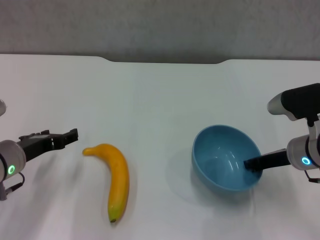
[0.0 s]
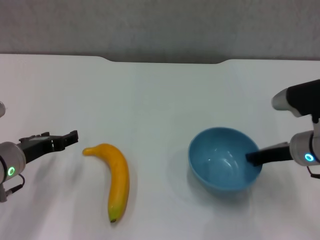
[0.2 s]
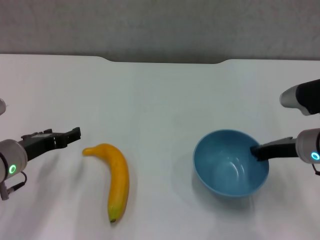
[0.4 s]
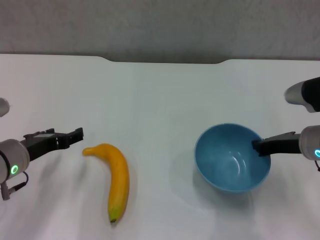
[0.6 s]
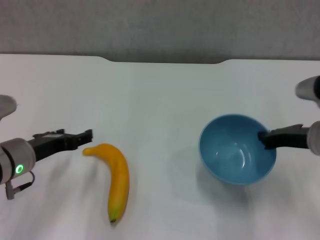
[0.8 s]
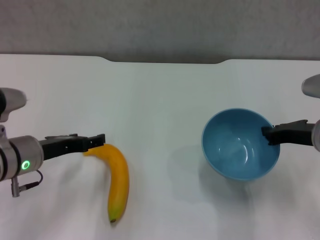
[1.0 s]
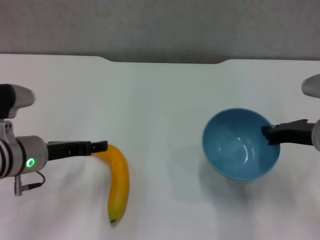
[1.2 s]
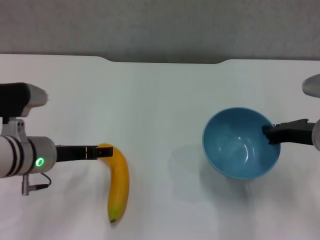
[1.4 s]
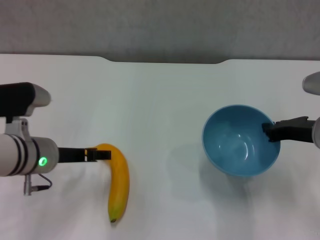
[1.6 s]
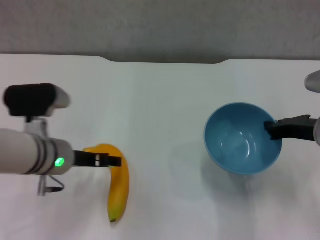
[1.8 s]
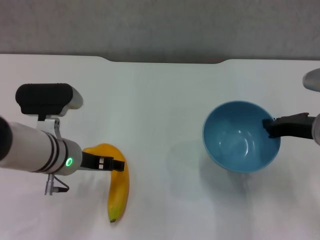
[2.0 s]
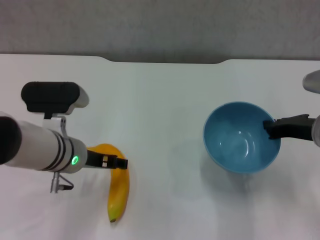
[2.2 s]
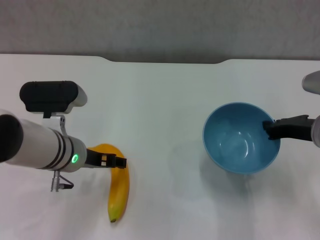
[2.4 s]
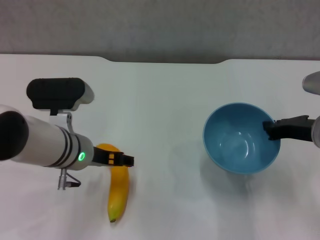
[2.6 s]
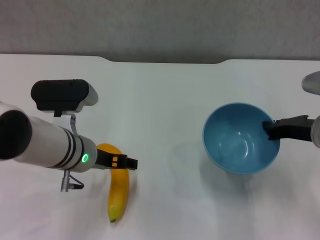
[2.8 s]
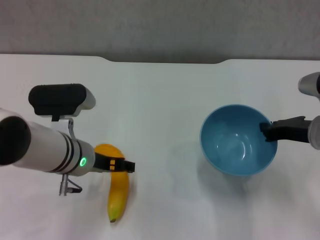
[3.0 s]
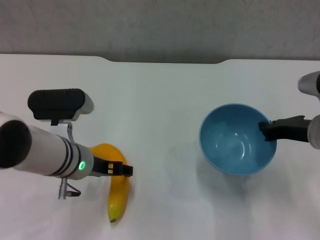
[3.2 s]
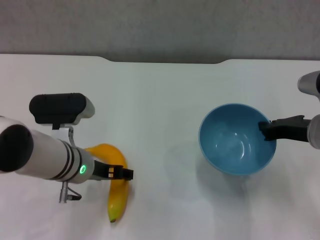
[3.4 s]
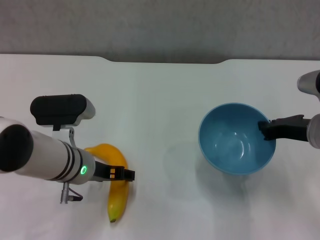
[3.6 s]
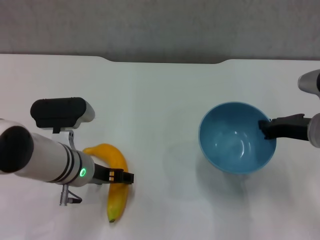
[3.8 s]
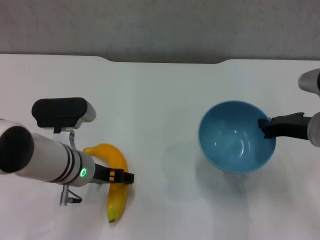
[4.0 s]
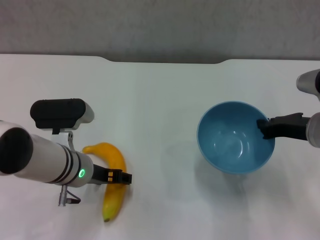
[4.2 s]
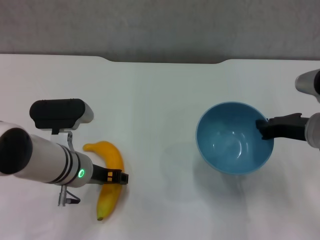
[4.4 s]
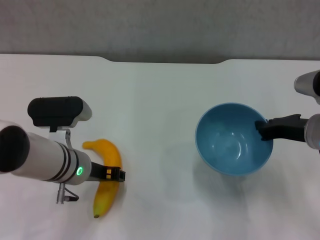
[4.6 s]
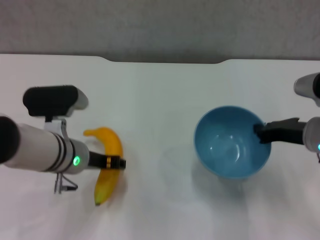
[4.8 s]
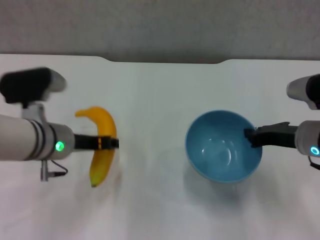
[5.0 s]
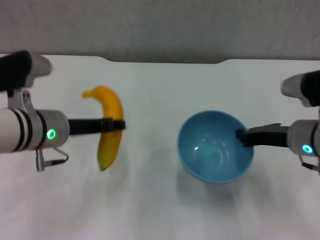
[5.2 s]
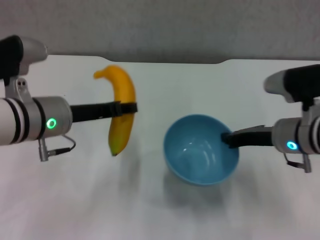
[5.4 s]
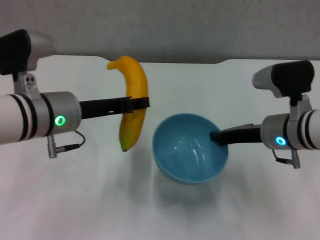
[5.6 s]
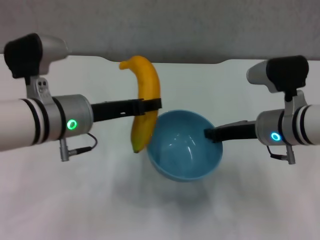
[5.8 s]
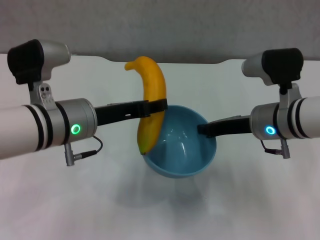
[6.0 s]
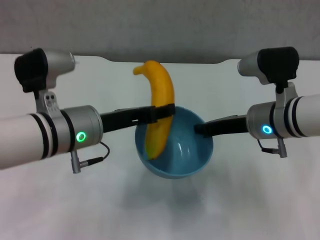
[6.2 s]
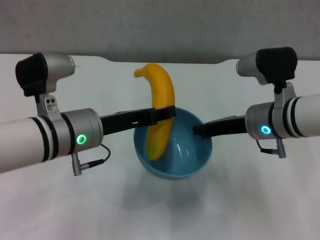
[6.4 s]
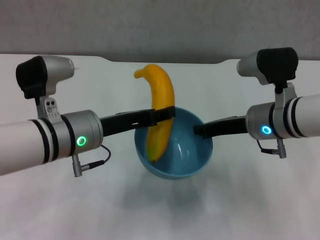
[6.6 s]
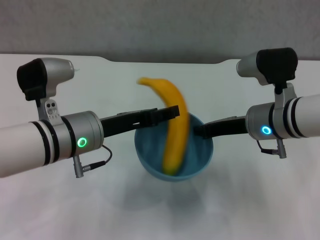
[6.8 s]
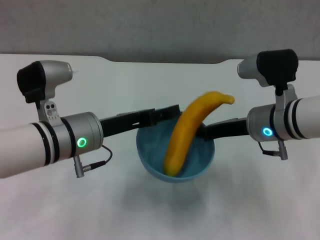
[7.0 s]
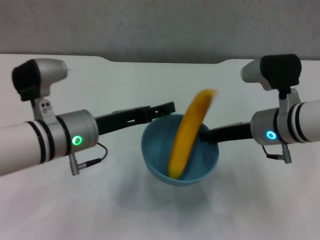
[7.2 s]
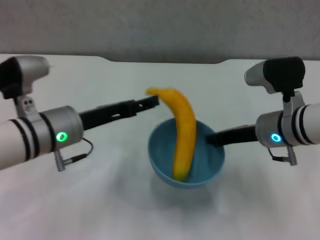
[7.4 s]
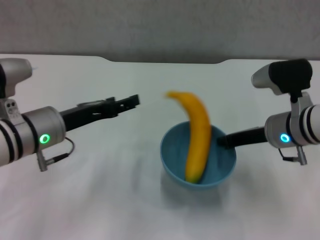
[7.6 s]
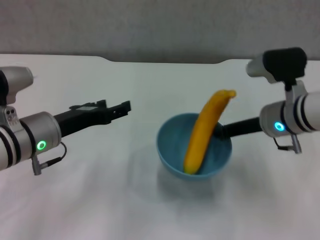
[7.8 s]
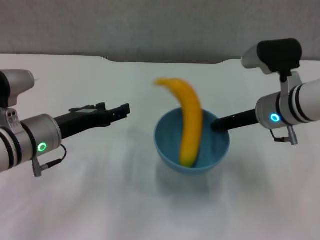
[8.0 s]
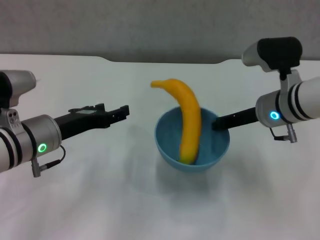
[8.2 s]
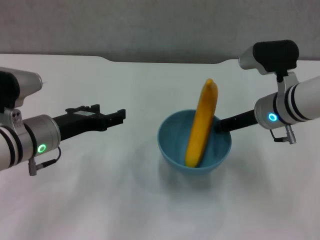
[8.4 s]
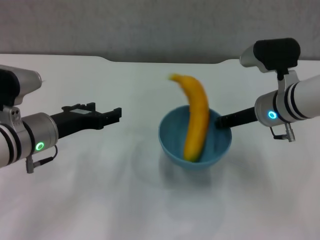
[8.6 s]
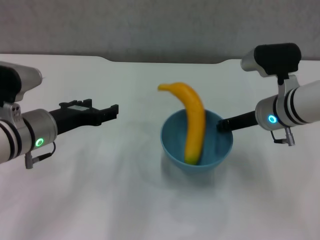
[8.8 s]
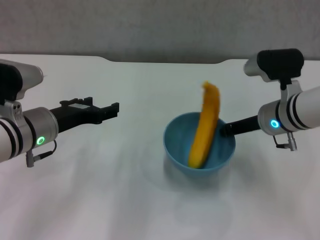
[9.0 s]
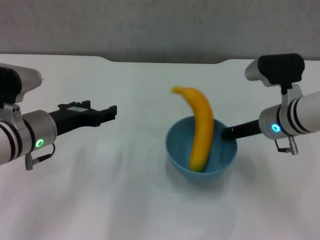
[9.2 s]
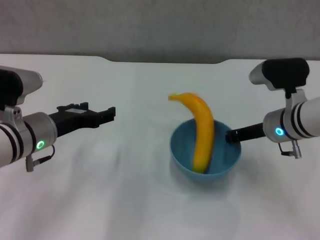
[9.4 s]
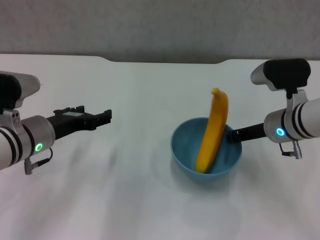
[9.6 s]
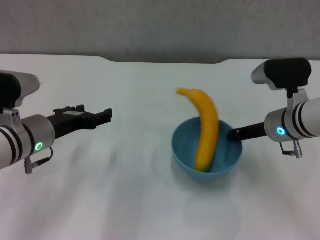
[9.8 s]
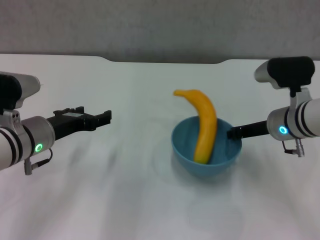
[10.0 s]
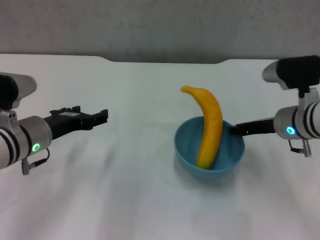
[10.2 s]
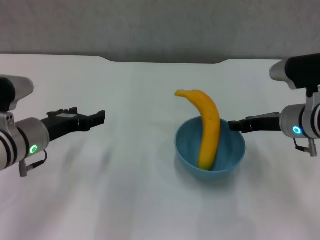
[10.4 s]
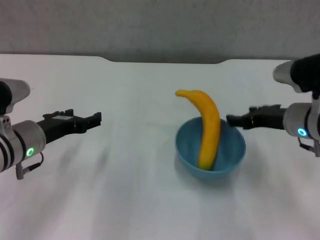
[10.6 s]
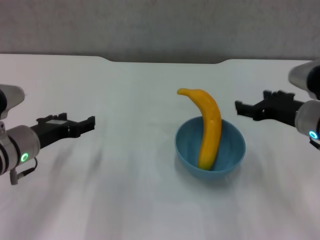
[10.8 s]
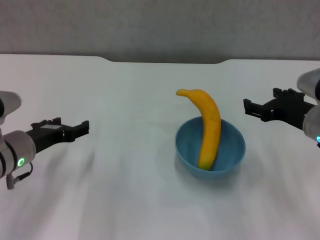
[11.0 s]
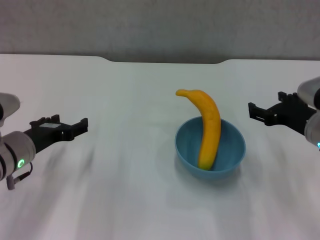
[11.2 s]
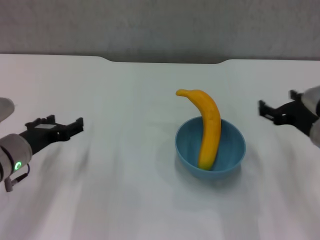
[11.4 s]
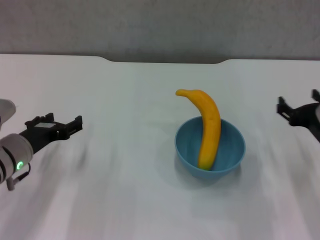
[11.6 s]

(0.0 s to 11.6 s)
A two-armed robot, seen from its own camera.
Step, 0.2 s - 0.8 s: Lift the blue bowl with right gripper.
Step, 1.0 s - 4.4 s: Grasp the banana with left gripper.
Step, 4.6 s - 7.0 s: Place the banana in the blue bowl with left gripper.
Step, 7.2 s - 10.4 s: Place the bowl on the table with right gripper.
0.0 s - 1.4 s: The right gripper moves roughly 5 cm.
1.4 s - 2.8 s: The left gripper goes some 5 cm to the right.
2.8 s - 4.4 s: The grippers make only small movements.
4.4 s - 5.8 s: The right gripper travels to the left by about 5 cm, while the left gripper heads upward, covering about 10 cm, and closes up.
5.8 s - 7.2 s: The left gripper opens.
7.2 s - 8.8 s: The left gripper travels to the left by some 5 cm.
8.8 s - 10.2 s: There are only small adjustments of the grippers.
10.2 s - 11.6 s: The left gripper shifts by about 5 cm. The right gripper is displaced backward and to the right by about 10 cm, and opens up.

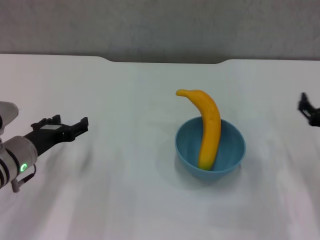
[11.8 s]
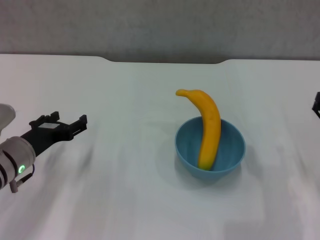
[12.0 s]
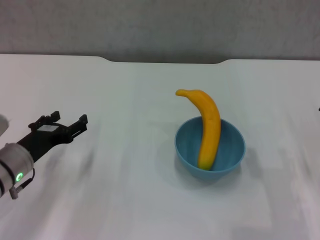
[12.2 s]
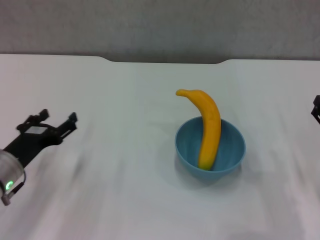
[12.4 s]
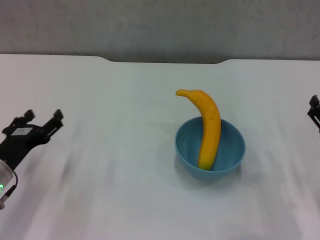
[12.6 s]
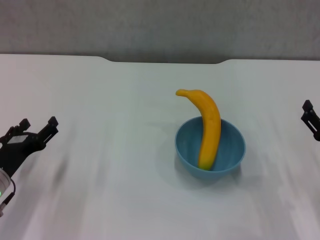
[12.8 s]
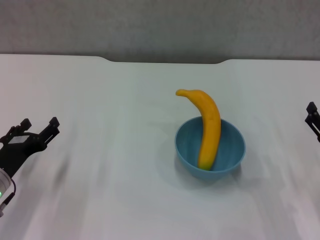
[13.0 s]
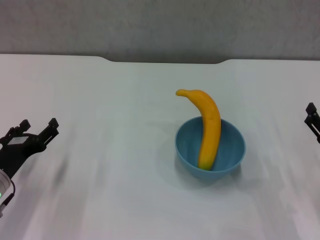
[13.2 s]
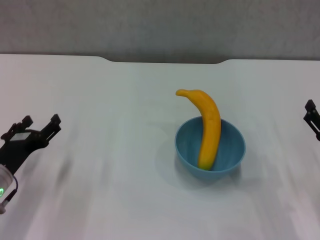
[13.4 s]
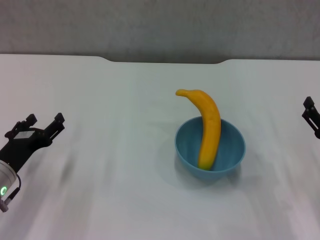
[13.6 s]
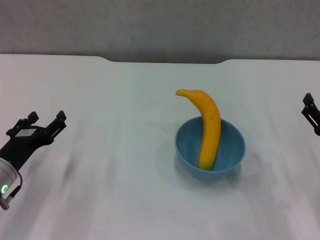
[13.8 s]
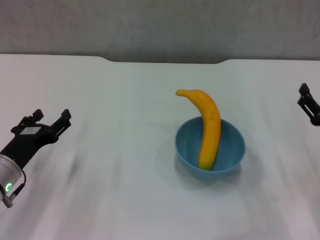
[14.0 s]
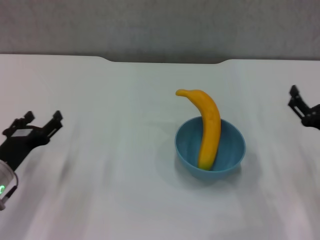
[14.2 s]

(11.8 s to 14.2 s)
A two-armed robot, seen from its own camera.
11.8 s - 13.0 s: The right gripper moves approximately 5 cm. The left gripper ends up roughly 5 cm from where it was.
13.0 s - 14.2 s: The grippers make only small movements.

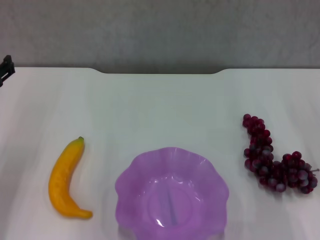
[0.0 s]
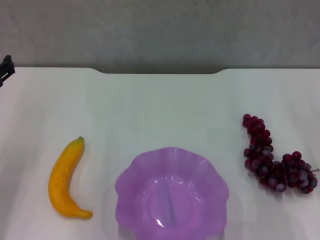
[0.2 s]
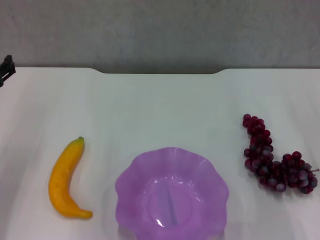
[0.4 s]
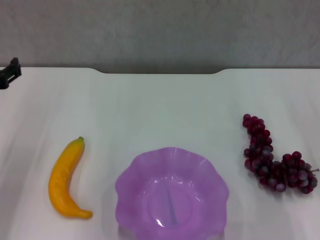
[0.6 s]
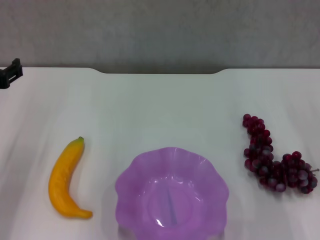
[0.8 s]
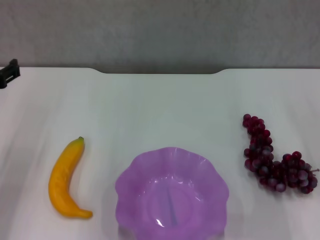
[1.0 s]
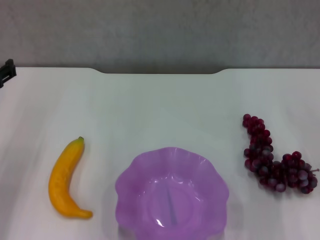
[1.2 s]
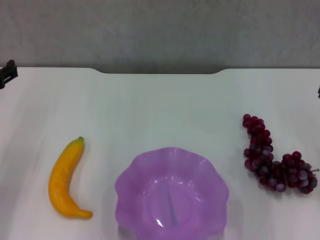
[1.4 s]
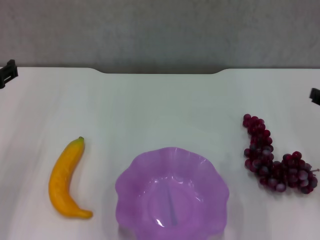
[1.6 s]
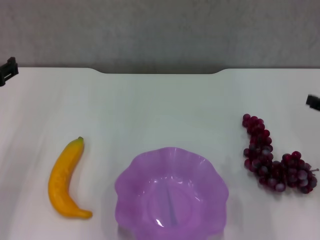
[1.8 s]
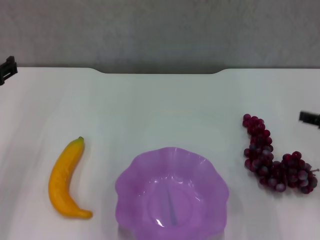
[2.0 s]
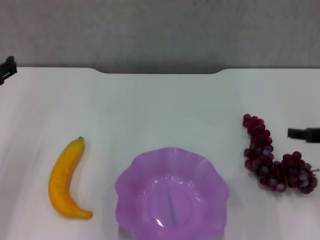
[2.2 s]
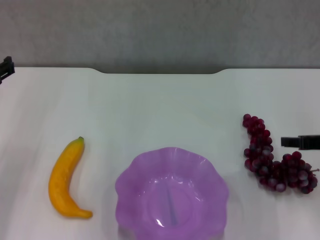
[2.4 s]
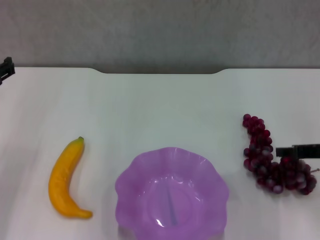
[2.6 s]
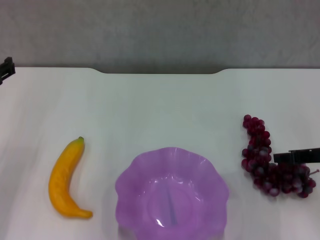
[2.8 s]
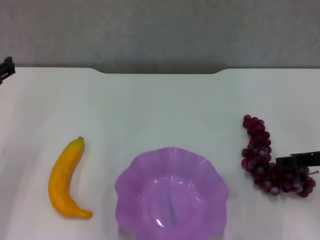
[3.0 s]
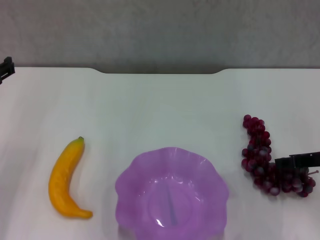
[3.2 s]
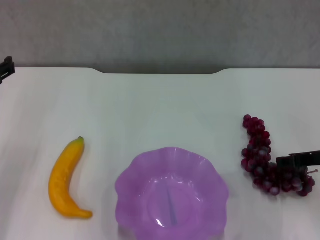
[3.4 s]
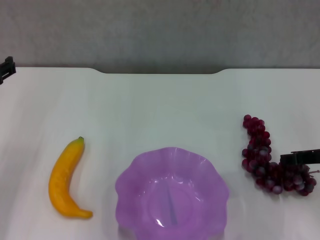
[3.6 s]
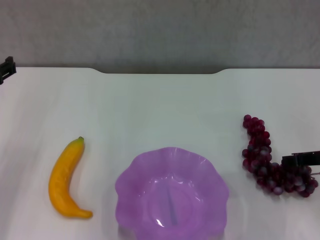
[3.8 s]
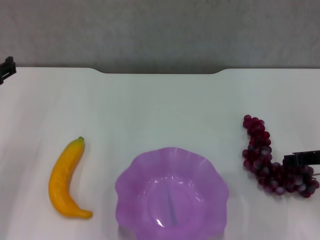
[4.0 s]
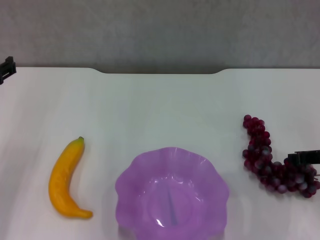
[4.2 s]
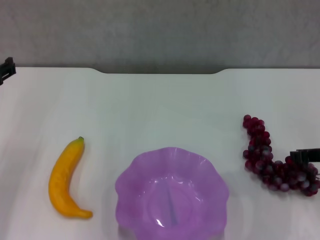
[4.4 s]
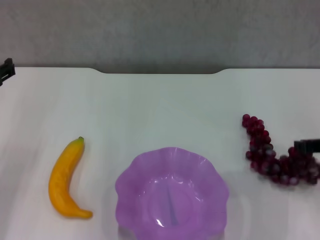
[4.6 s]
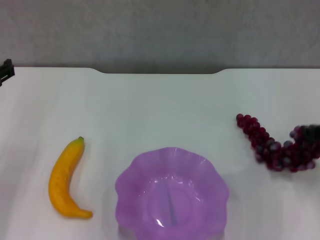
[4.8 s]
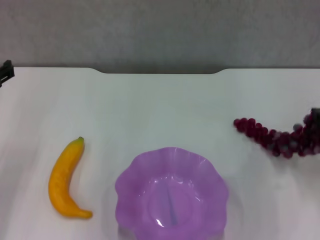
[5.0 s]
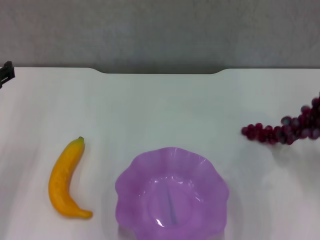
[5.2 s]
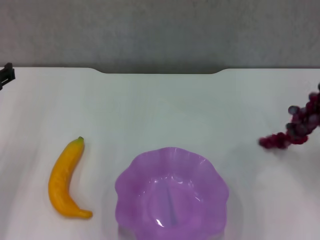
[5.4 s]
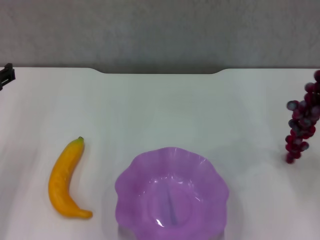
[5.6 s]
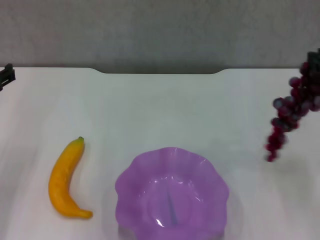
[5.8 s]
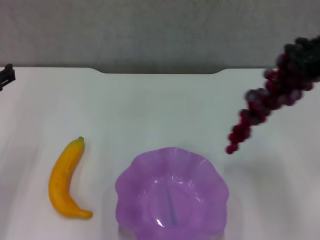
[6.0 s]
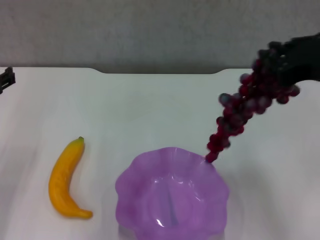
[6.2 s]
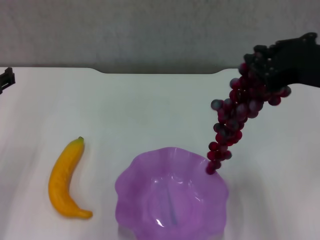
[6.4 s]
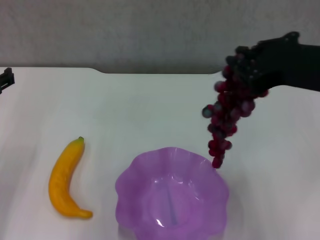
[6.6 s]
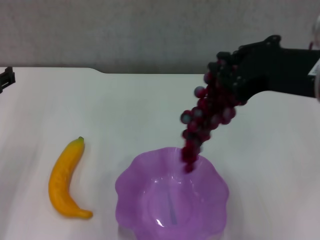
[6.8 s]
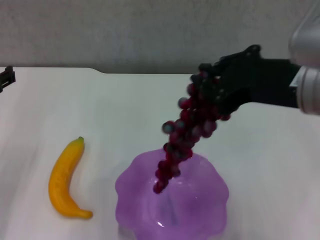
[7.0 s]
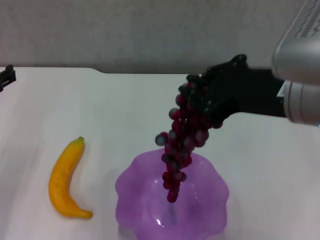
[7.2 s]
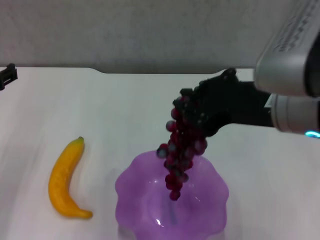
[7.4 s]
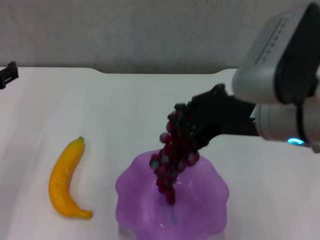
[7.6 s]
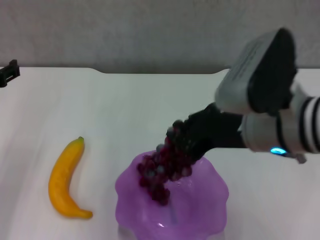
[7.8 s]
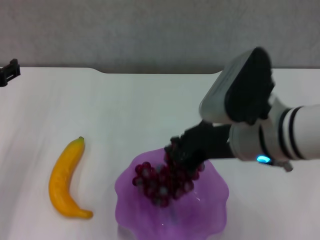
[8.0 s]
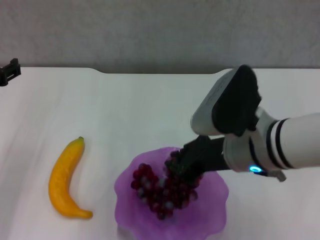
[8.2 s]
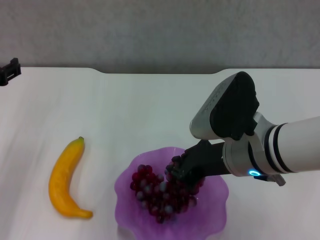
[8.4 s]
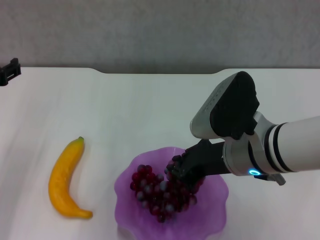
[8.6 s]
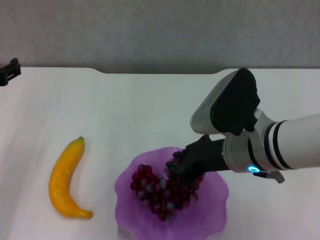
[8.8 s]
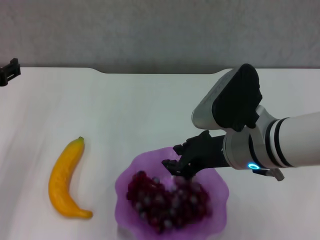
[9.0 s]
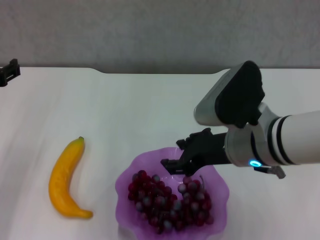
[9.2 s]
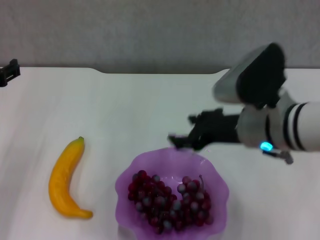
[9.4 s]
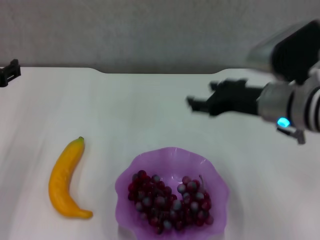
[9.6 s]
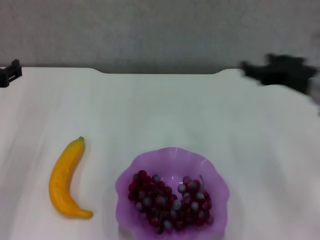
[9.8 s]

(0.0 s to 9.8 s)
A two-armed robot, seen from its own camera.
Step, 0.0 s - 4.2 s: Grasp the grape with right gripper.
Step, 4.4 s - 9.2 s: Place the grape in the purple plate with right gripper.
1.4 s - 2.8 s: The right gripper moves some 5 cm.
2.8 s - 4.2 s: The right gripper closes.
4.2 s - 5.6 s: The right gripper shifts approximately 15 cm upward.
5.6 s - 7.0 s: The right gripper goes about 15 cm to the left.
7.0 s - 8.4 s: The right gripper shifts about 10 cm downward.
8.4 s - 9.8 s: The right gripper moves to the right, approximately 10 cm, and opens up.
